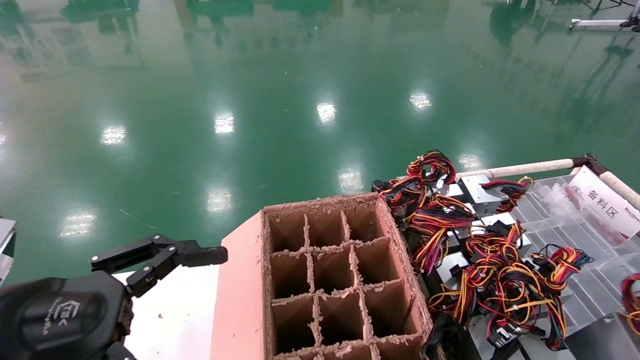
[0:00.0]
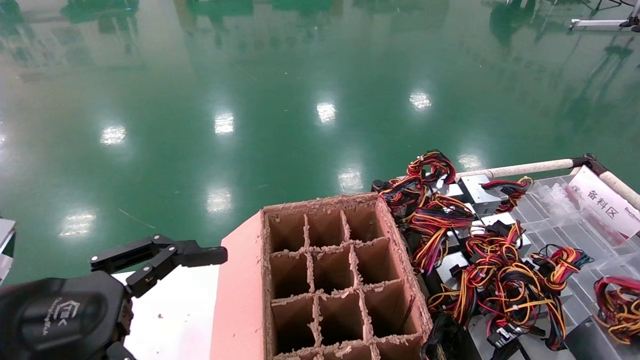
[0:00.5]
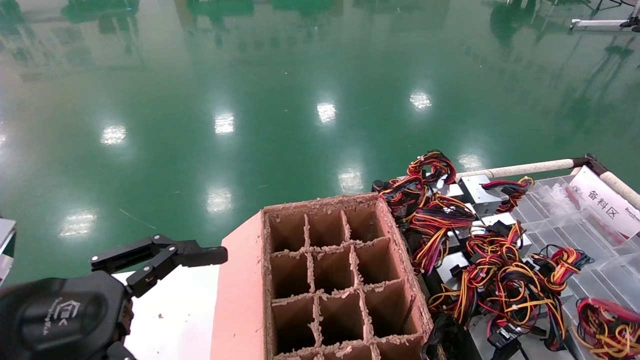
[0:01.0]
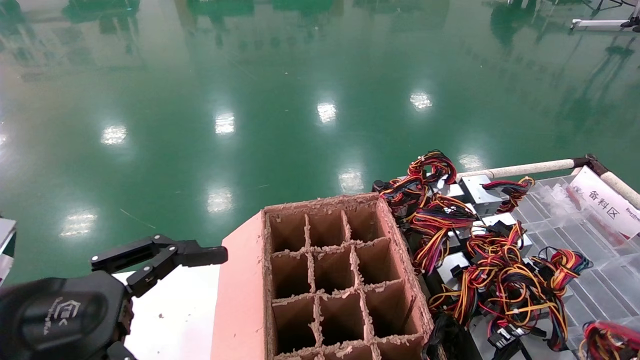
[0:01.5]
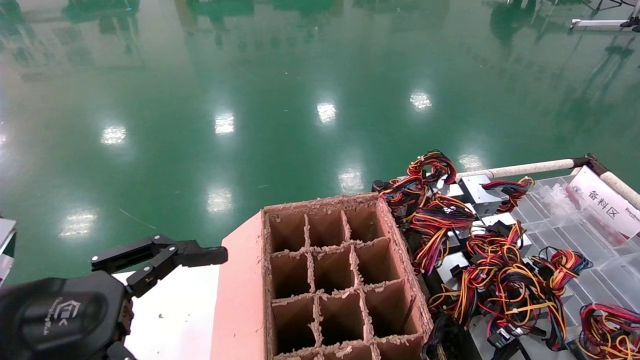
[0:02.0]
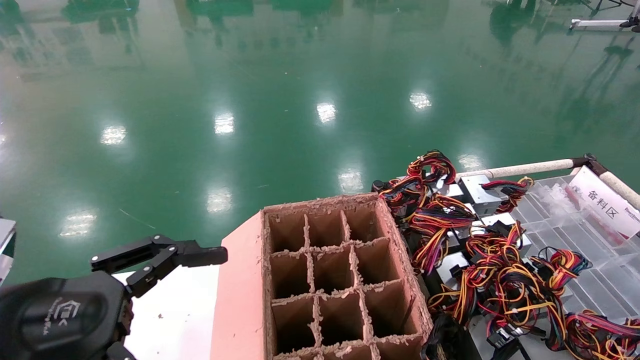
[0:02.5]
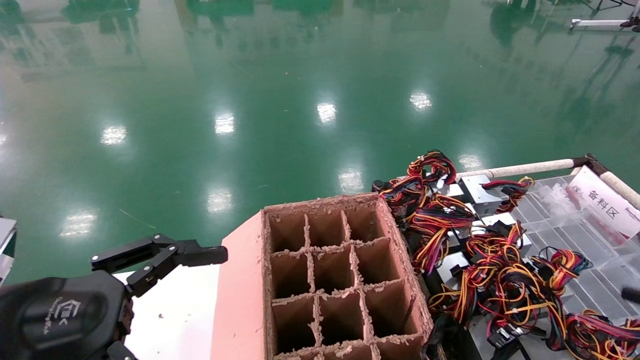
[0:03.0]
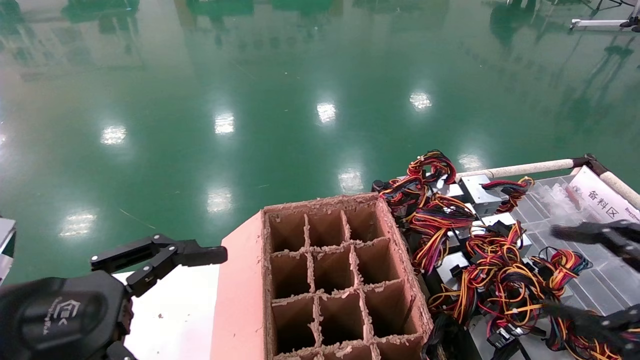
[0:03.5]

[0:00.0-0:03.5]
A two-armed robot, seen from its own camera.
Step, 0:00.0 to 0:02.0: Place the power supply on the operating table.
0:00.0 to 0:02.0: The grippers make only small movements.
0:02.0 to 0:03.5: The right gripper is displaced to the left by about 10 cm, and opens.
